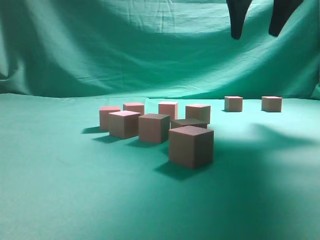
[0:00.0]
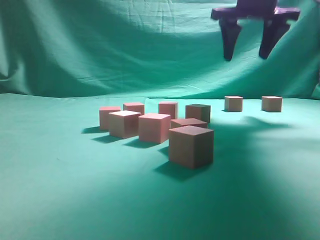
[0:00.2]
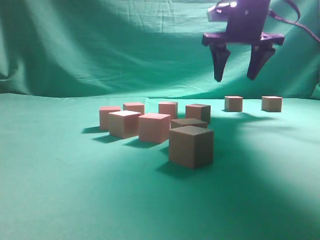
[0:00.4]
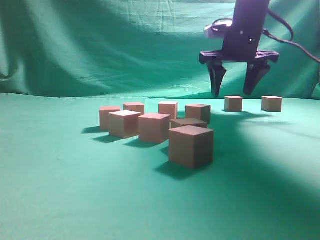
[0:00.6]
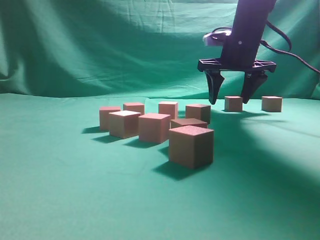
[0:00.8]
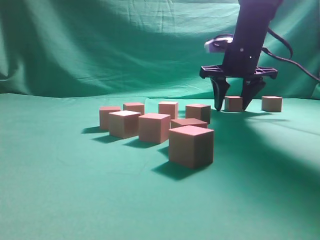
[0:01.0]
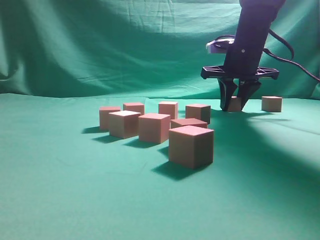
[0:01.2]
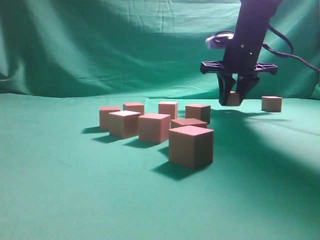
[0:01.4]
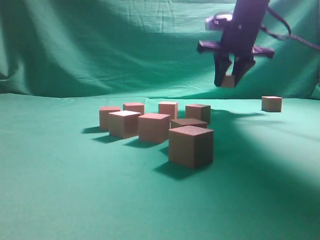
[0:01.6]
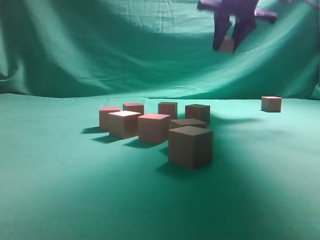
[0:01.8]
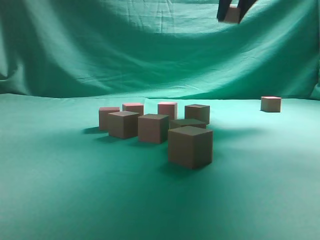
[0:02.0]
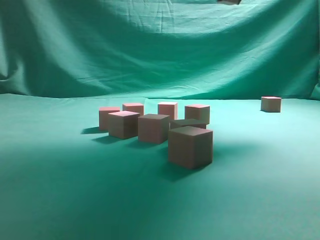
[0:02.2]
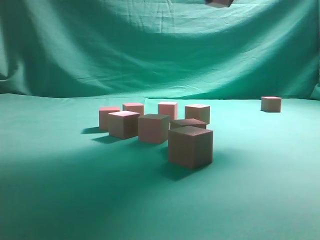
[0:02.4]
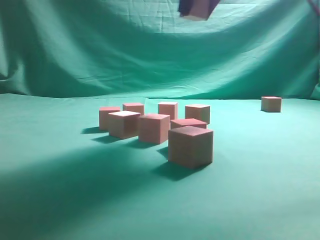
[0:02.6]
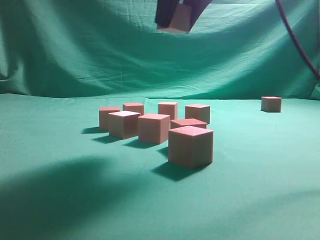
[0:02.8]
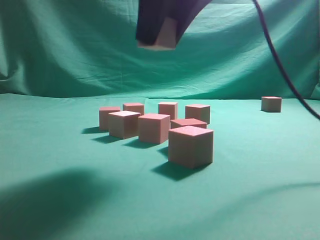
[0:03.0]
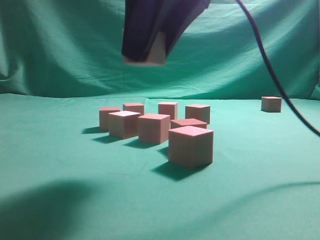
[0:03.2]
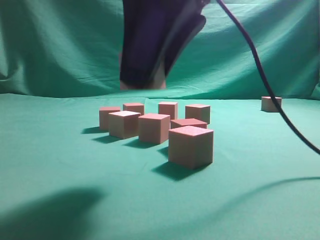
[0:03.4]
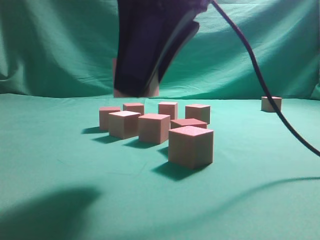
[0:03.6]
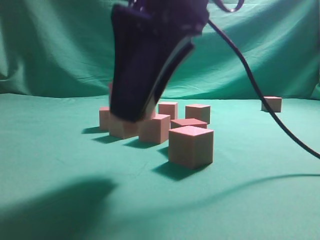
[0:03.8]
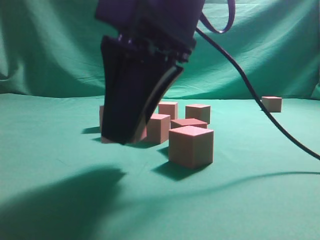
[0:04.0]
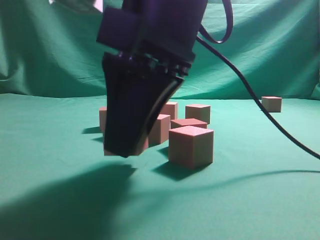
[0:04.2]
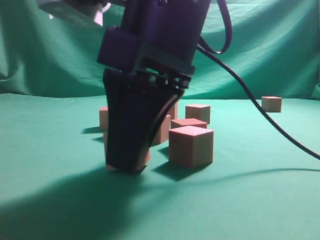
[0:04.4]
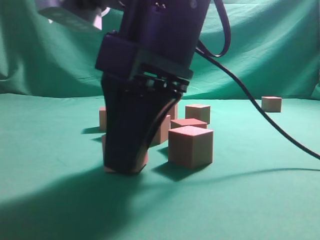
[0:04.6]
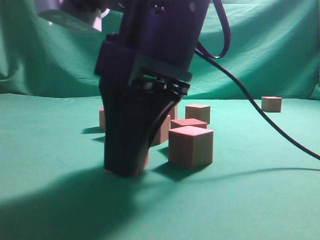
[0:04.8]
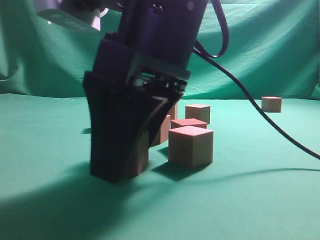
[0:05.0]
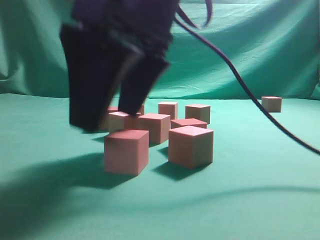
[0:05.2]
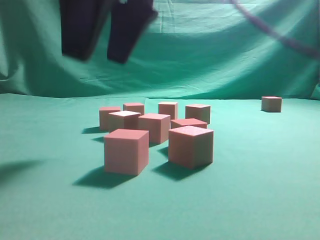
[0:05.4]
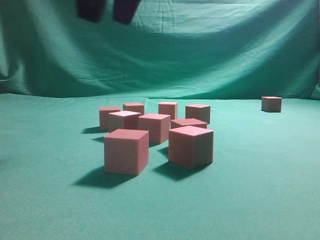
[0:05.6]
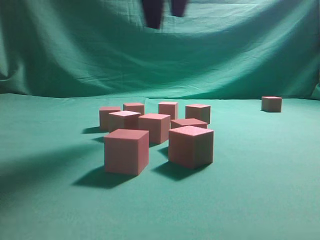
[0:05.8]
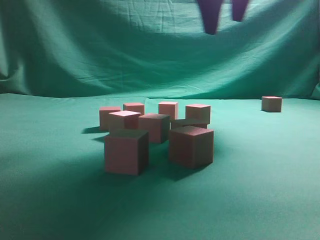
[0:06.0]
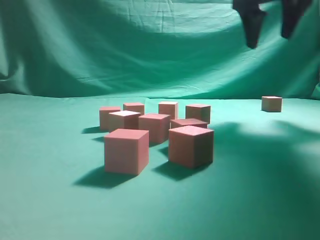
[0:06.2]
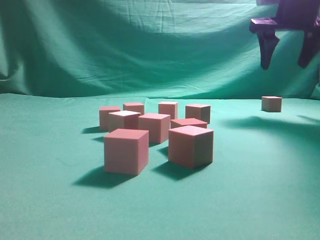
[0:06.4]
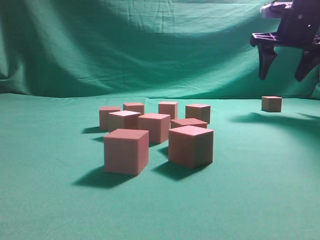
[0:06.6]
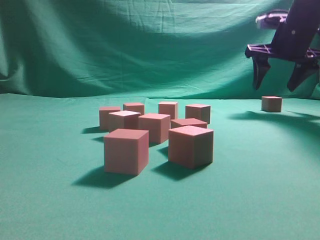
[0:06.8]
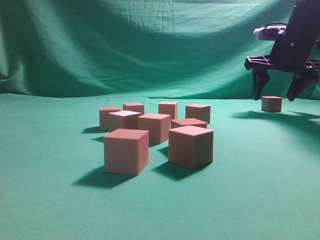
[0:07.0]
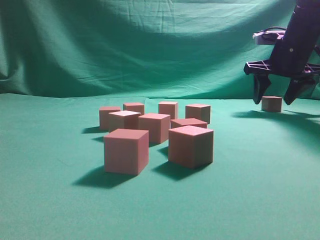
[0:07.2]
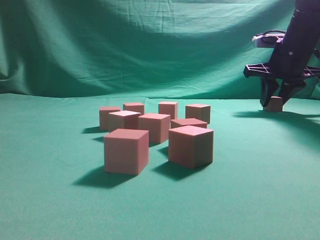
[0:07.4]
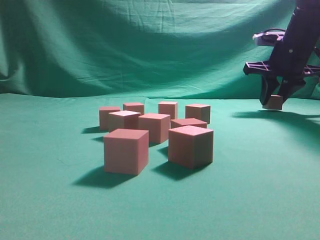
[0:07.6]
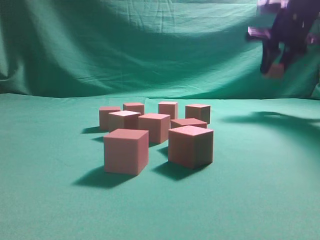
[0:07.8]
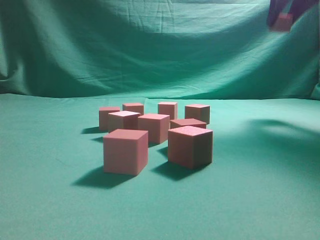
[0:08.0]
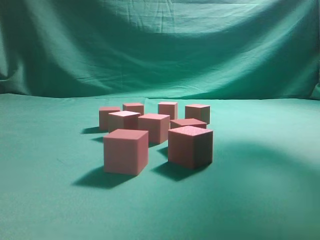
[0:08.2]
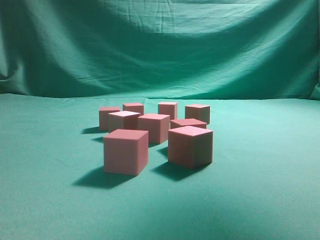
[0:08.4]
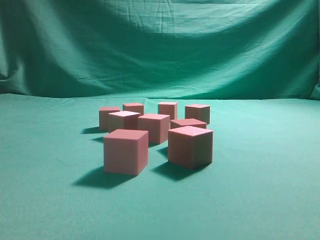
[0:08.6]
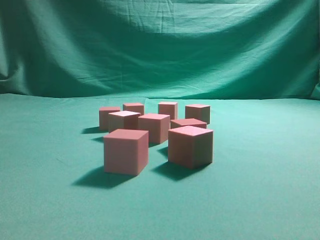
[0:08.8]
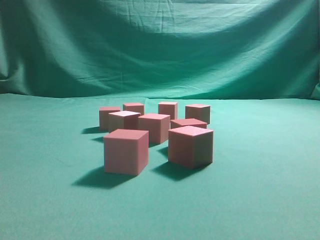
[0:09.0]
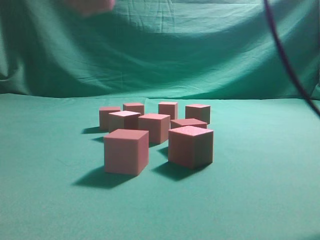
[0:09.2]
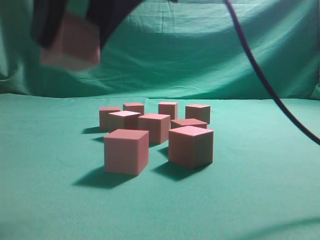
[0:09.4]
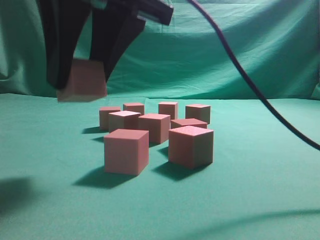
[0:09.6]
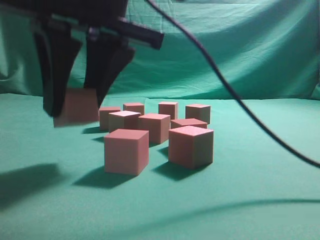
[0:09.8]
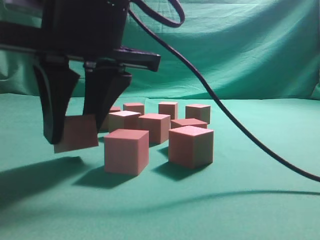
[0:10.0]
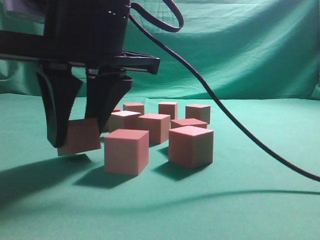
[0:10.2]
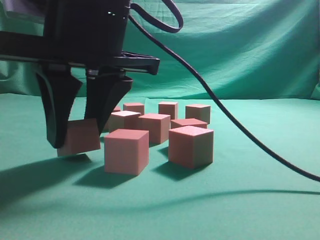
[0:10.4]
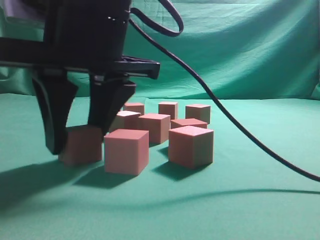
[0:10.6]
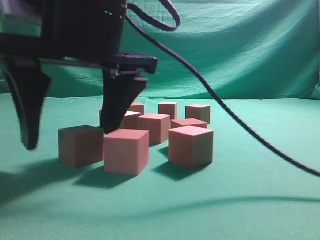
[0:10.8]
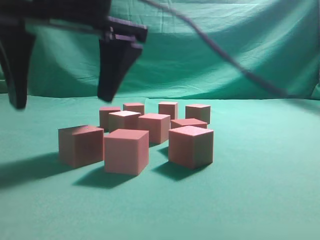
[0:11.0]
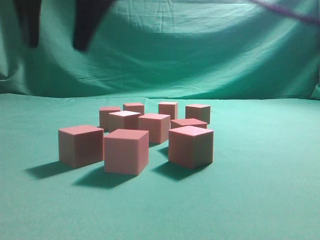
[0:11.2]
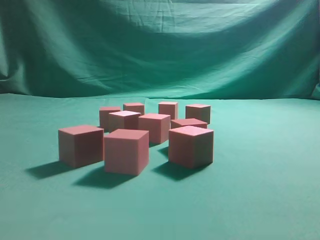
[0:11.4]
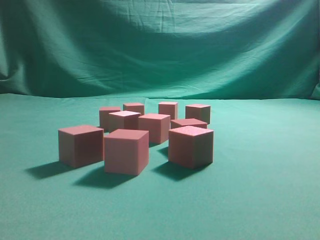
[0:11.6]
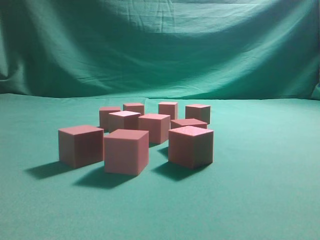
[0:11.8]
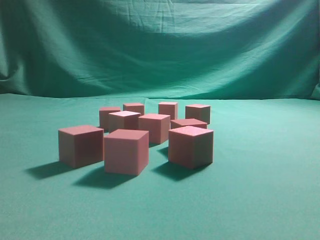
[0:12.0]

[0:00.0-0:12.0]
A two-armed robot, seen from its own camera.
Task of the whole recording: pick up the multiple cubes in two columns one by one and place them in another position on the table.
Step, 0:00.0 to 0:01.4: Pick up the block on the table.
Step, 0:01.6 to 0:05.2: Place the block at the correct position to assemble the letter S.
Step, 0:05.6 to 0:07.6: Pick up the block on the table.
Step, 0:07.8 to 0:11.0: Place the block at the correct position to assemble the letter S.
0:00.0 to 0:01.6: The right gripper is displaced forward and downward by approximately 15 cm, and closes up.
0:01.6 to 0:03.0: The right gripper travels backward and to the left by roughly 25 cm.
0:03.0 to 0:04.4: The right gripper is displaced downward by approximately 10 cm.
0:04.4 to 0:06.0: The right gripper shifts approximately 20 cm forward, upward and to the right, and opens its fingers.
0:06.0 to 0:07.6: The right gripper shifts about 25 cm to the right, downward and forward, and closes.
0:07.6 to 0:09.0: The right gripper shifts roughly 40 cm backward, to the left and upward.
0:09.0 to 0:10.4: The right gripper shifts some 20 cm downward and to the left.
0:10.4 to 0:12.0: The right gripper goes about 35 cm upward, and closes up.
